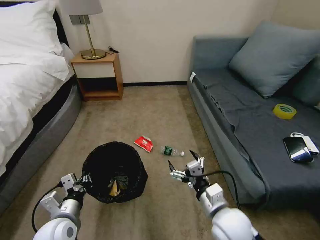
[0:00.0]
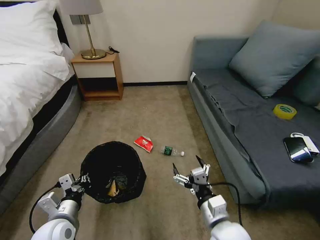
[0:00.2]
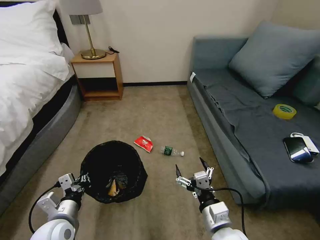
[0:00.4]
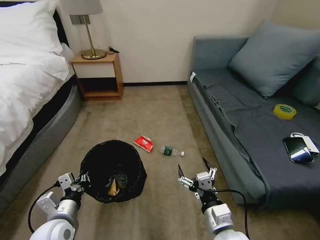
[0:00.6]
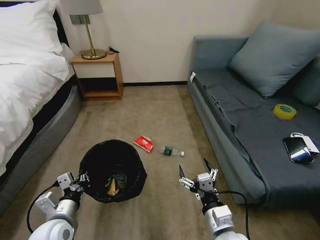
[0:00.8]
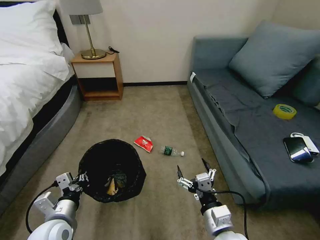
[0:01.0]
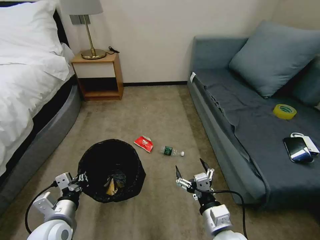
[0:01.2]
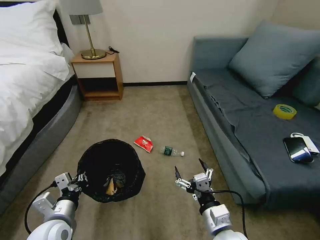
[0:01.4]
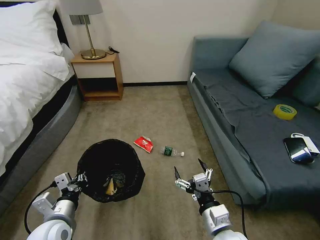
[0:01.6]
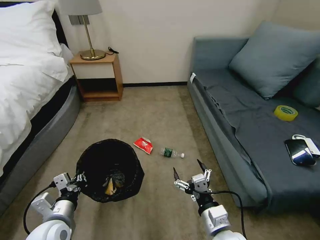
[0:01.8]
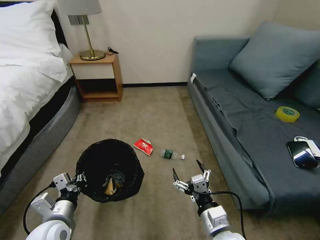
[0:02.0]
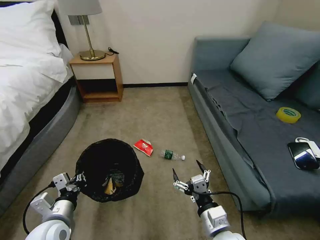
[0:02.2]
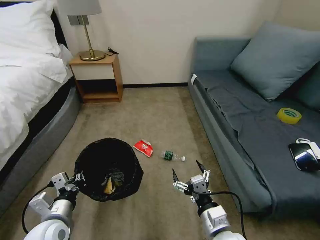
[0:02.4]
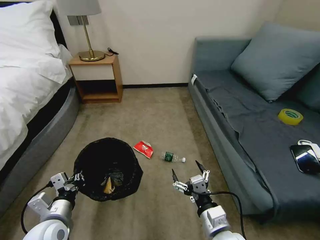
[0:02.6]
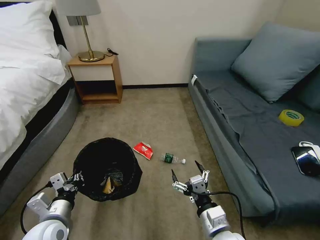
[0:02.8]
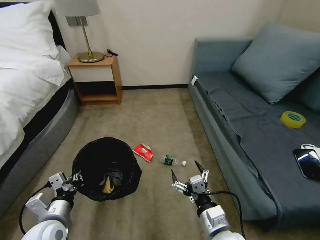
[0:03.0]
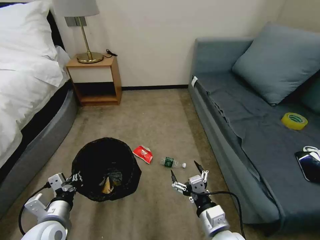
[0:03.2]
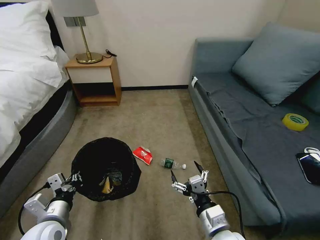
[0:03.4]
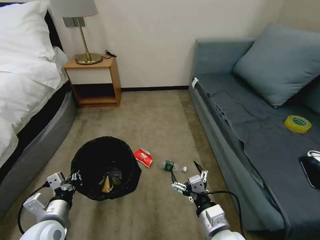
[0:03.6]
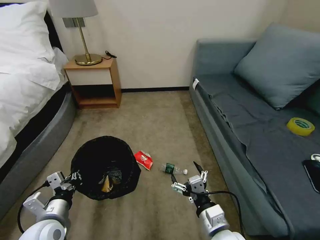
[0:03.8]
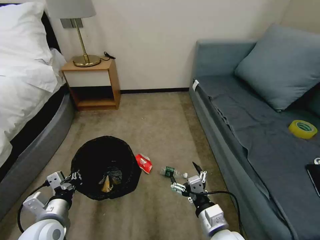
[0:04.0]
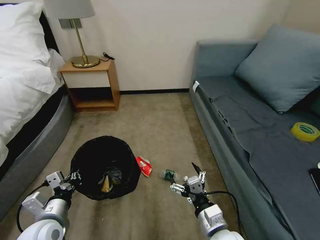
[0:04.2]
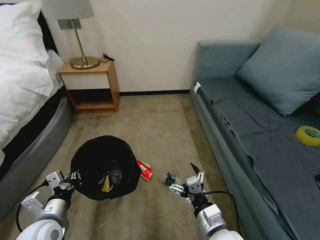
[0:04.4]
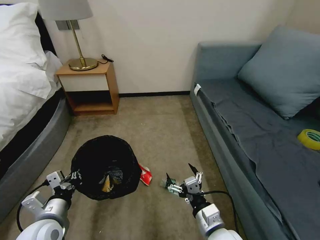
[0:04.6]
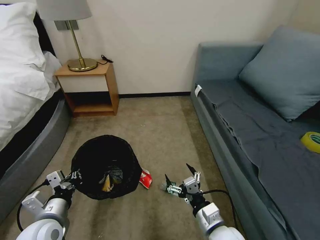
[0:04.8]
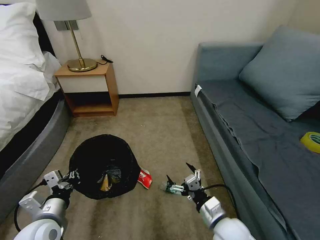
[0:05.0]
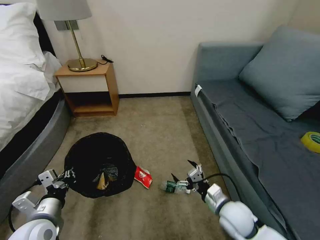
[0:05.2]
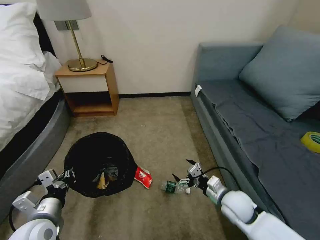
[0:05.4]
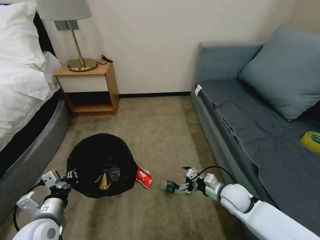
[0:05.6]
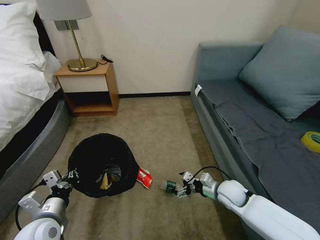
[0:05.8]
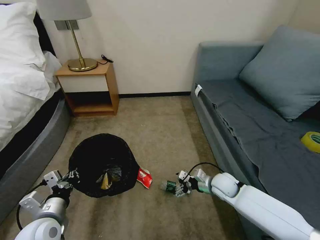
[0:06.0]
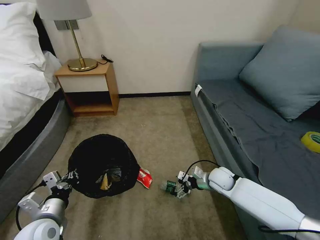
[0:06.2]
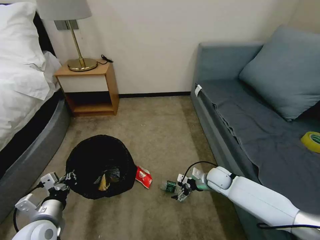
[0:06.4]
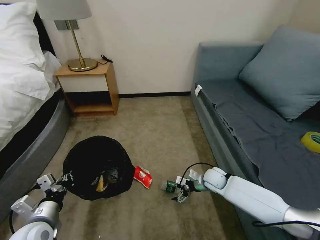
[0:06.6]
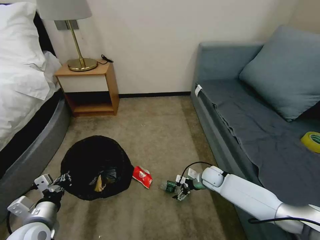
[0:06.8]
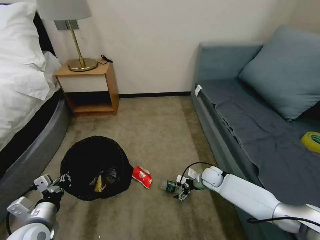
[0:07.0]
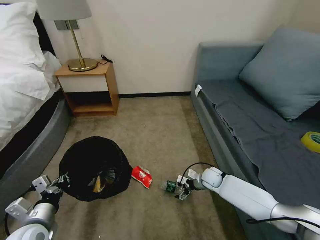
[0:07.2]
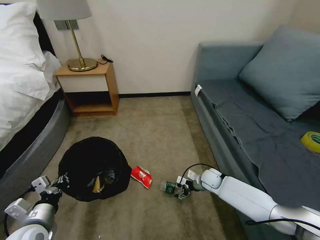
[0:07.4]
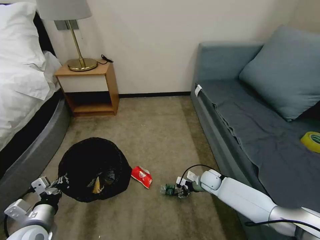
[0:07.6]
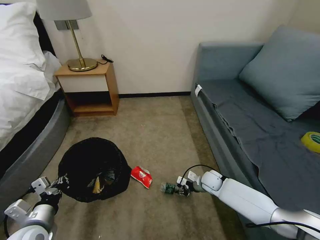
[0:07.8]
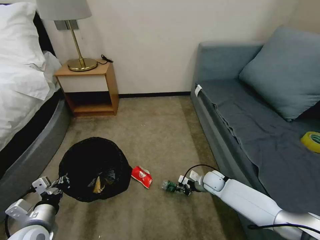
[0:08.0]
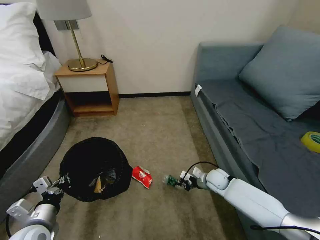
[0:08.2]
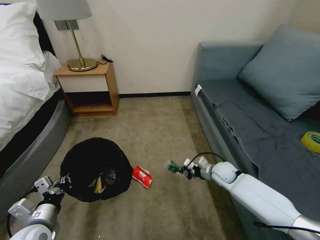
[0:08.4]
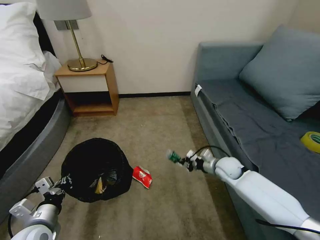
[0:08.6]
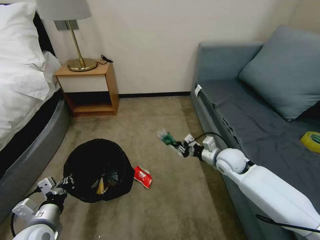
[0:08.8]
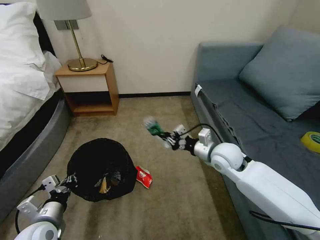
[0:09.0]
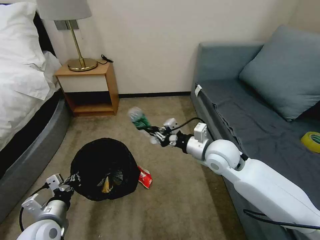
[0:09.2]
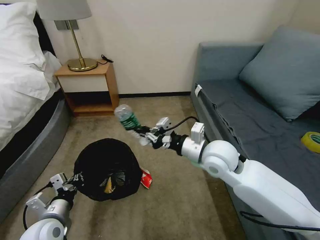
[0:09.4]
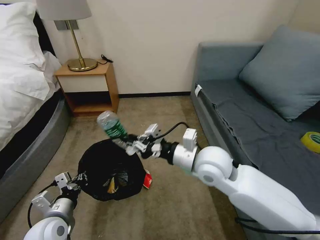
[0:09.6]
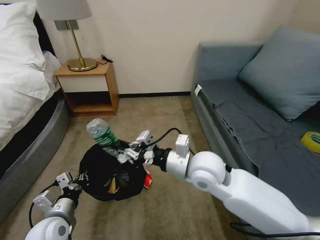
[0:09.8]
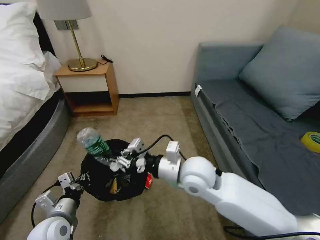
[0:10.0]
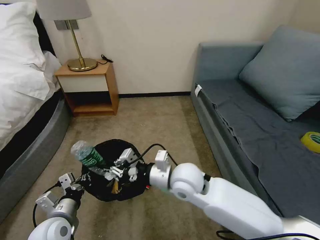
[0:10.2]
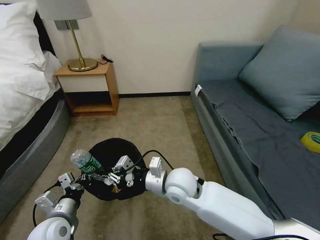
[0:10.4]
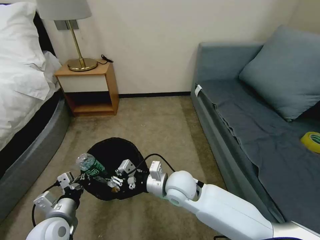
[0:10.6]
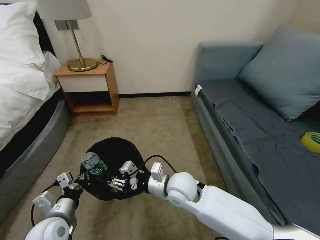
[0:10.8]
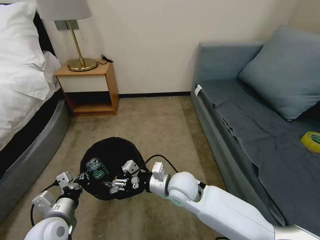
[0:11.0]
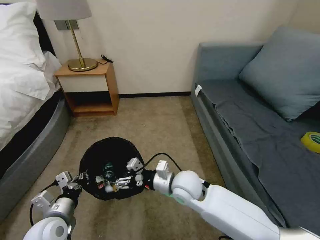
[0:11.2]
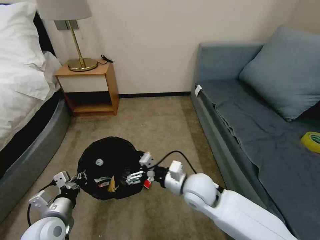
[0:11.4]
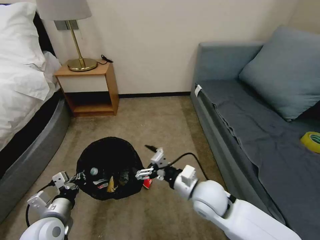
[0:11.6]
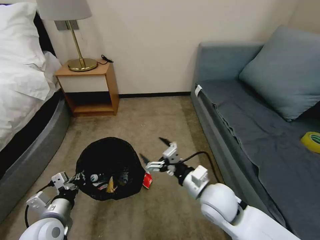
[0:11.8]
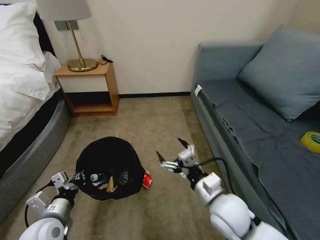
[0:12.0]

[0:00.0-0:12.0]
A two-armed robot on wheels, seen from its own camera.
Task of the whole recording: Pick up the trash bin, then pick up the garbage on the floor and place it into the trash bin.
0:00.0 to 0:01.6: The right gripper changes place by some 5 cm.
0:04.4 to 0:06.0: The right gripper heads forward and to the right, covering about 20 cm.
0:06.0 to 0:07.6: The right gripper travels downward and forward by roughly 10 cm, and closes its fingers.
0:07.6 to 0:09.0: The right gripper moves upward, about 25 cm, and closes up.
0:09.0 to 0:10.4: The right gripper heads to the left and backward, covering approximately 20 cm.
0:10.4 to 0:12.0: The right gripper heads to the right and backward, covering approximately 15 cm, and opens up.

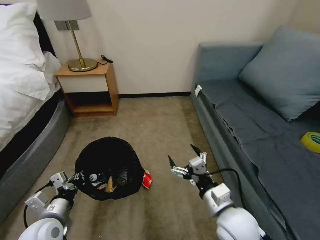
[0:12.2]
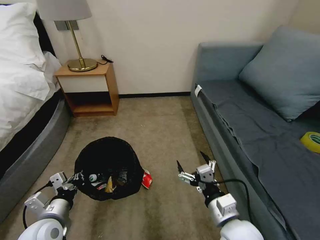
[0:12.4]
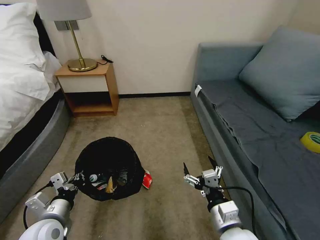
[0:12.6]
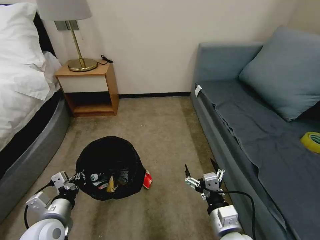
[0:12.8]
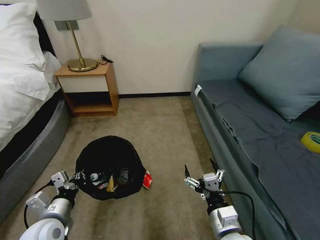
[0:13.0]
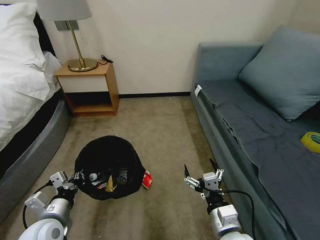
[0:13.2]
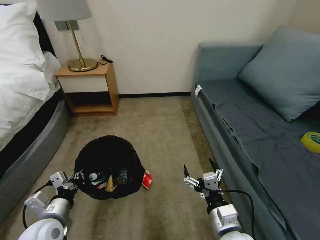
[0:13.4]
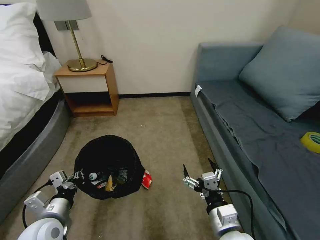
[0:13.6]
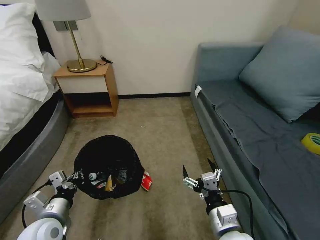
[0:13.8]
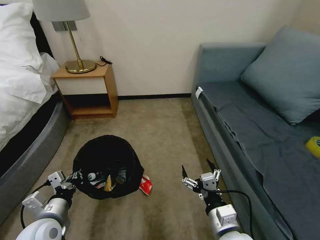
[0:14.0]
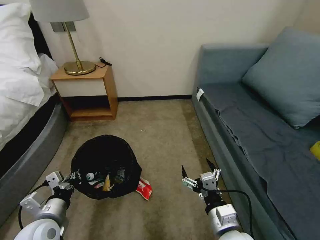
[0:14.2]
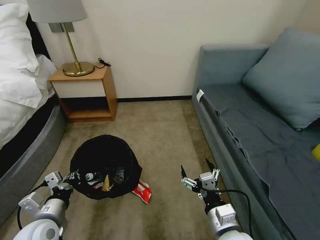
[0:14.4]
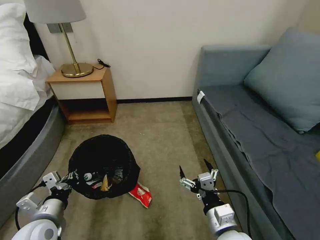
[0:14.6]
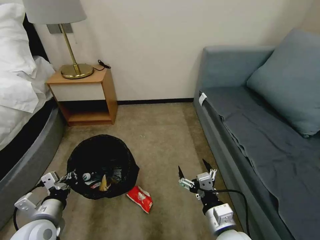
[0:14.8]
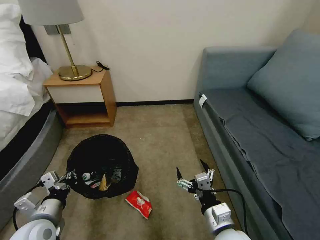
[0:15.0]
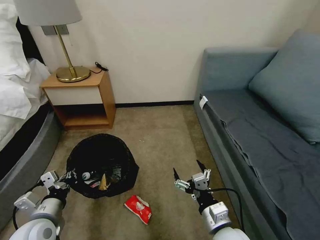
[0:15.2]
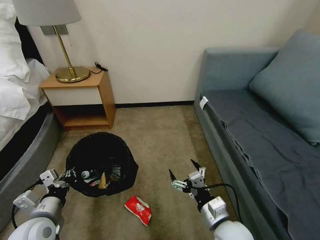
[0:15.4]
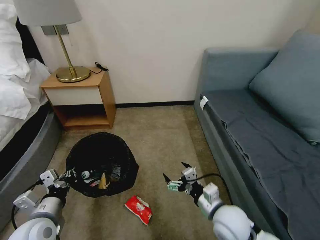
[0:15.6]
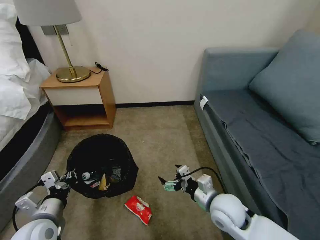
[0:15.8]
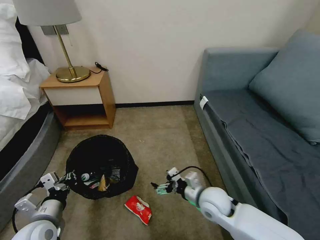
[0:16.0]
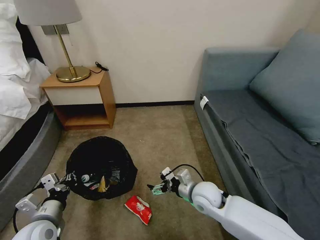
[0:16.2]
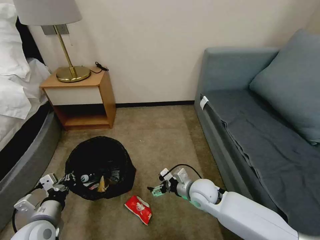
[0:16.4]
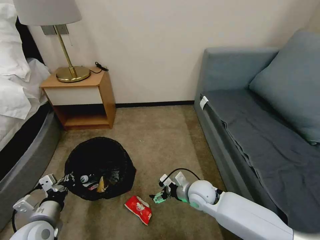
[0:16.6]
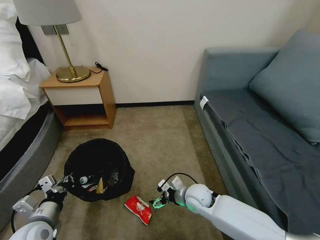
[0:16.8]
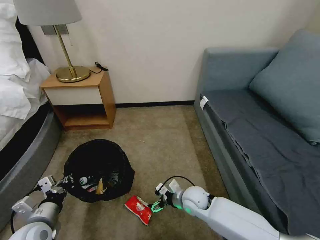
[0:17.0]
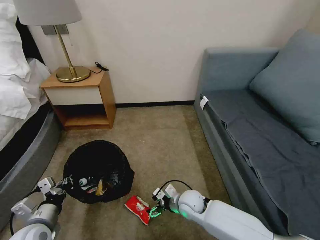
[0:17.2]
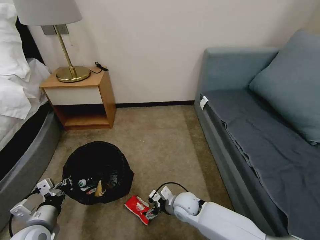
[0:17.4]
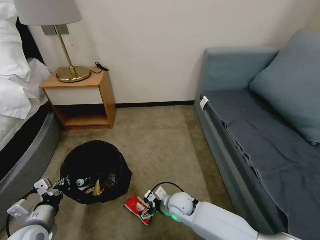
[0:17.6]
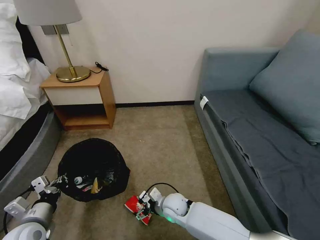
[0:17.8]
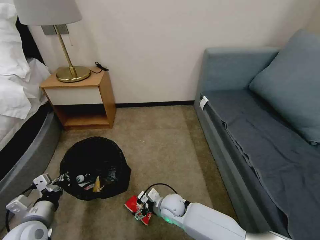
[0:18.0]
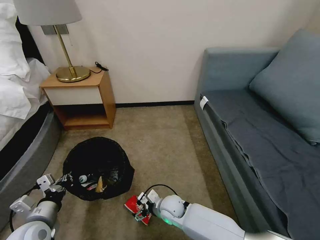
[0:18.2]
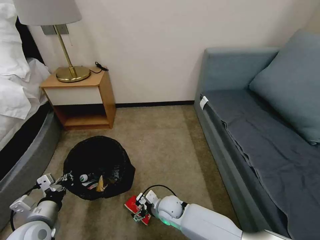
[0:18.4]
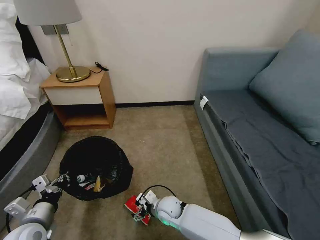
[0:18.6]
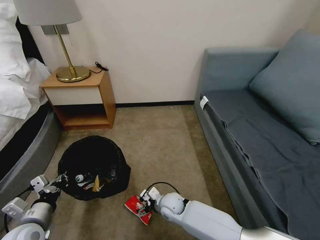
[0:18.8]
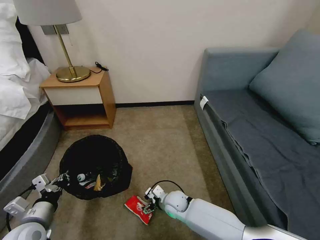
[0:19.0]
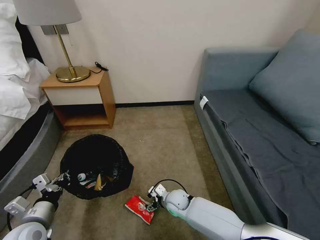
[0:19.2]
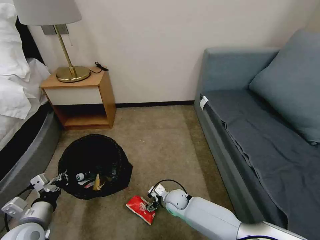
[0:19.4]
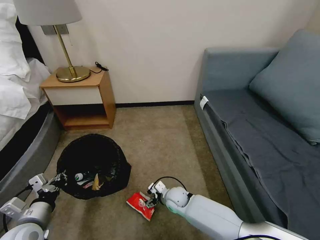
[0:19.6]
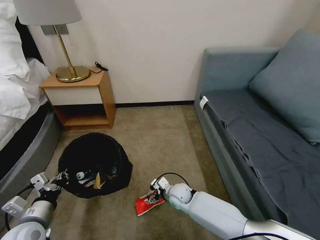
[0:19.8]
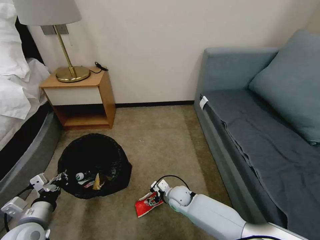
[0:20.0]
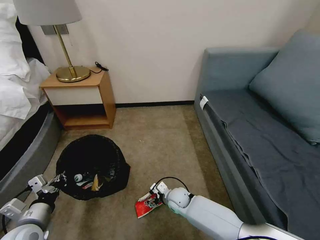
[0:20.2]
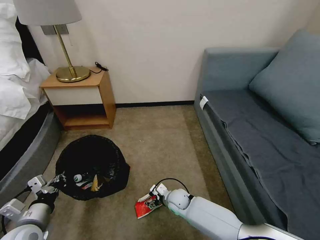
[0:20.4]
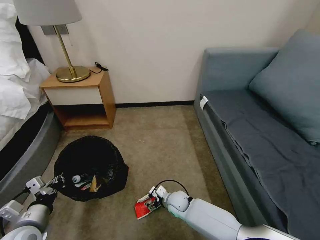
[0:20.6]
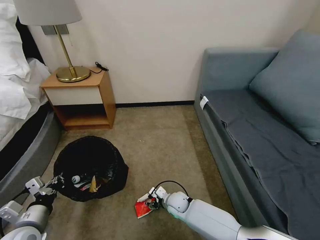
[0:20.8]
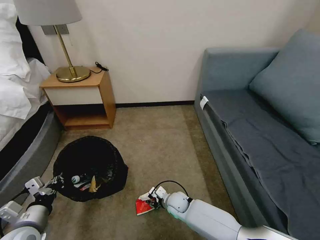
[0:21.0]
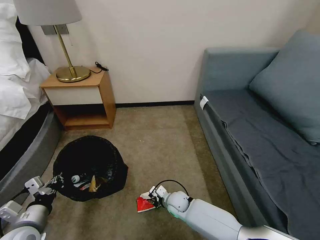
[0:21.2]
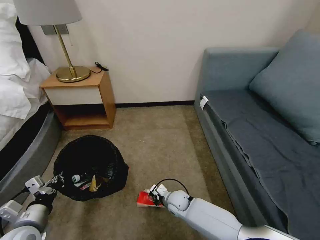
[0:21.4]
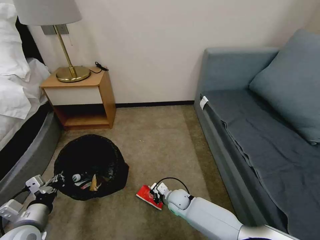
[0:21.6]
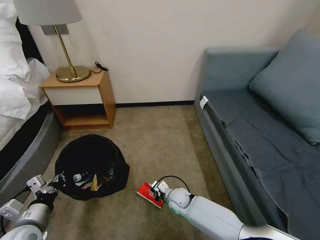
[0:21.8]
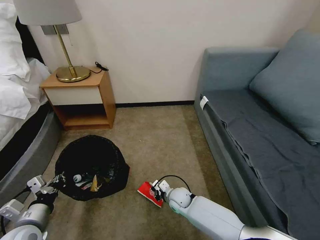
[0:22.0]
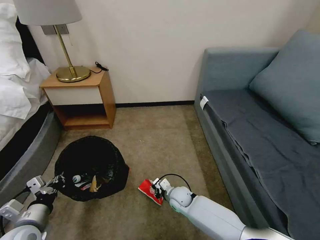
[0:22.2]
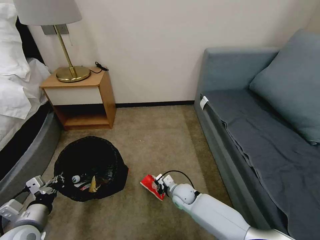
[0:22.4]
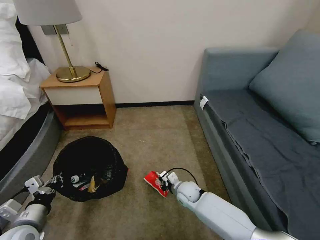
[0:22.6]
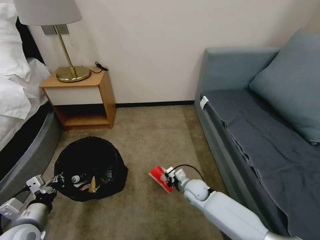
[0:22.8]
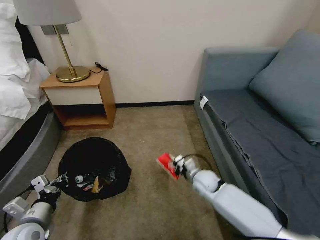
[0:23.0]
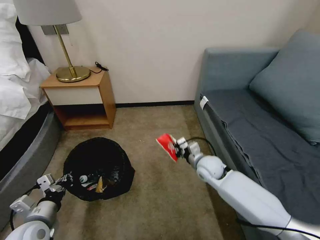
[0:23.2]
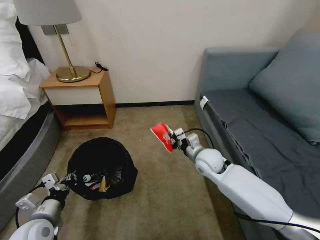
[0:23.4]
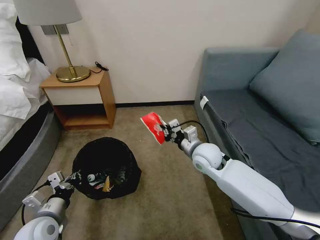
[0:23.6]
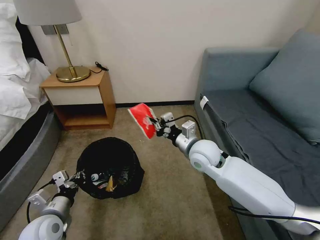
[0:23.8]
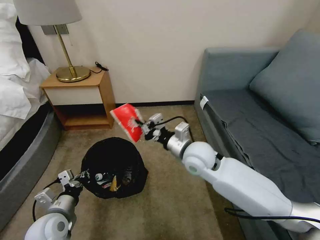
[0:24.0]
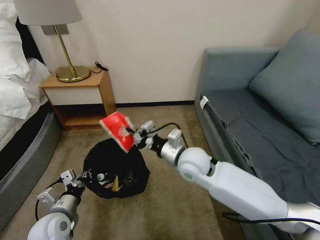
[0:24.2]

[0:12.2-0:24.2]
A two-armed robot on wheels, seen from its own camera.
Task of the whole recording: Pick up the trash bin, then pick up the garbage on the floor and place it into the trash bin.
0:12.2 to 0:13.8: The right gripper goes some 5 cm backward.
0:15.2 to 0:16.6: The right gripper travels forward by about 15 cm.
0:16.6 to 0:18.2: The right gripper moves to the left and downward, roughly 15 cm.
0:18.2 to 0:19.8: The right gripper travels forward by approximately 5 cm.
0:19.8 to 0:21.2: The right gripper closes.
0:21.2 to 0:22.6: The grippers make only small movements.
0:22.6 to 0:24.2: The right gripper goes approximately 25 cm upward. The left gripper is displaced to the right by about 5 cm.
